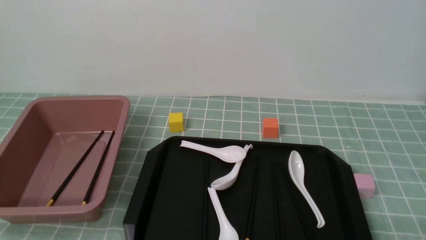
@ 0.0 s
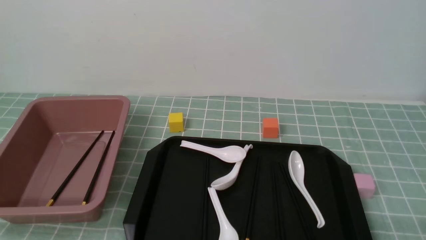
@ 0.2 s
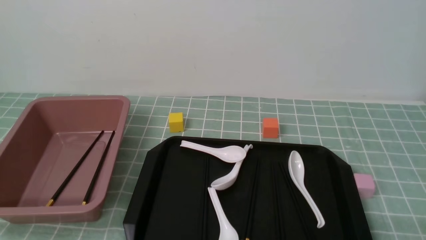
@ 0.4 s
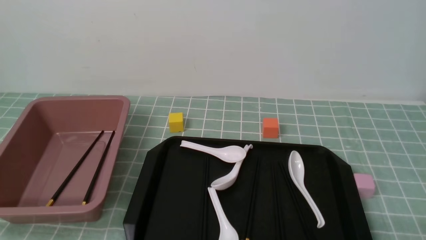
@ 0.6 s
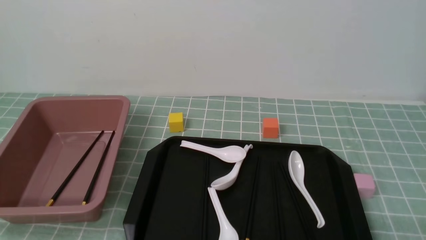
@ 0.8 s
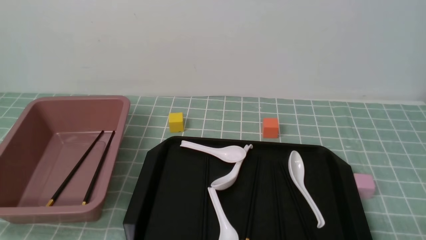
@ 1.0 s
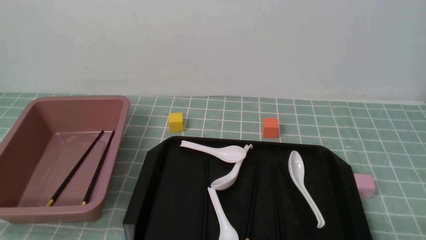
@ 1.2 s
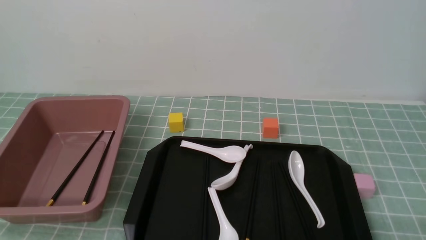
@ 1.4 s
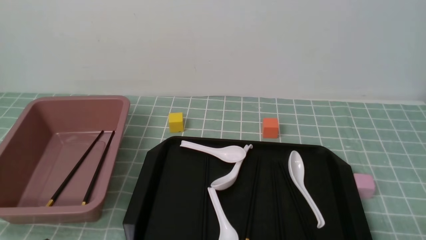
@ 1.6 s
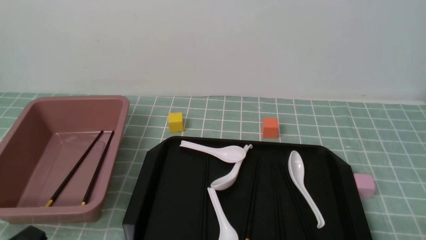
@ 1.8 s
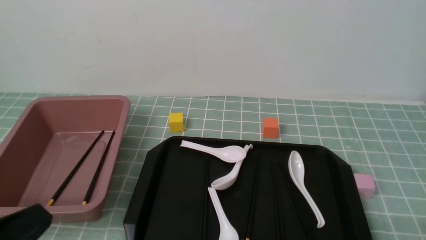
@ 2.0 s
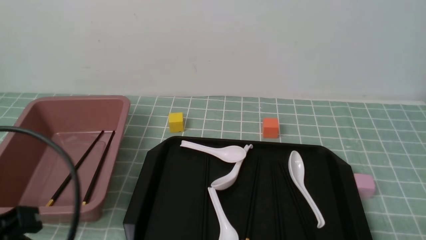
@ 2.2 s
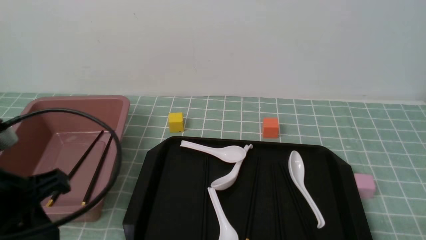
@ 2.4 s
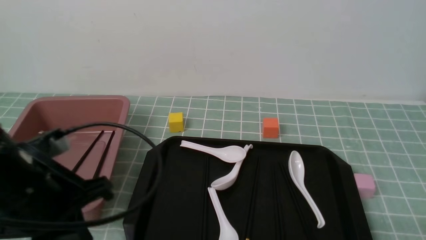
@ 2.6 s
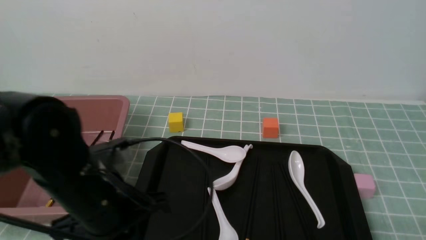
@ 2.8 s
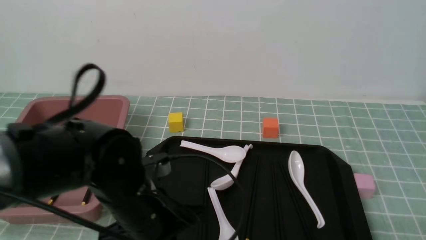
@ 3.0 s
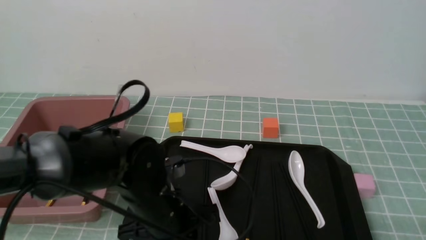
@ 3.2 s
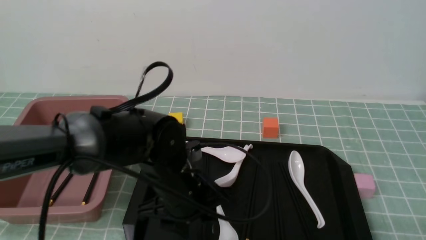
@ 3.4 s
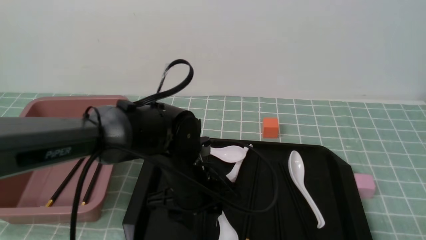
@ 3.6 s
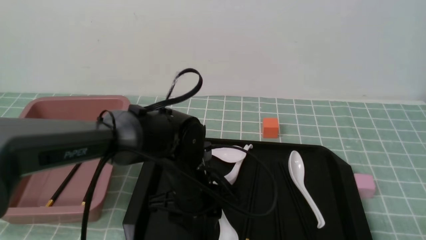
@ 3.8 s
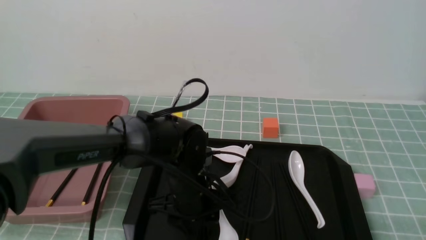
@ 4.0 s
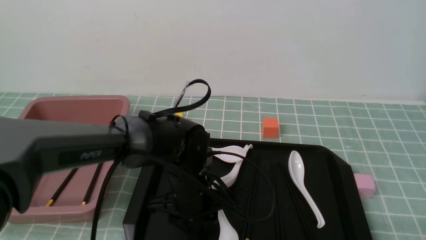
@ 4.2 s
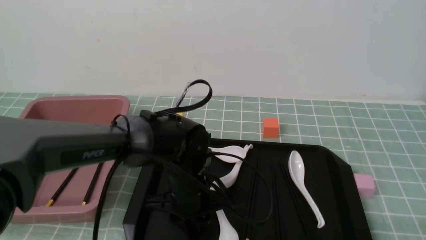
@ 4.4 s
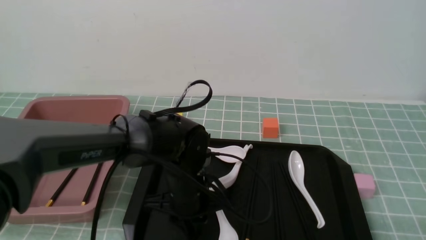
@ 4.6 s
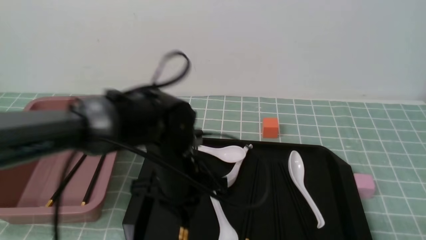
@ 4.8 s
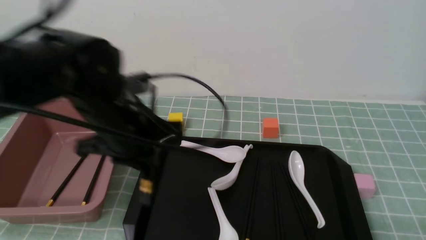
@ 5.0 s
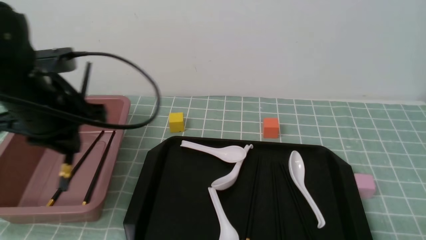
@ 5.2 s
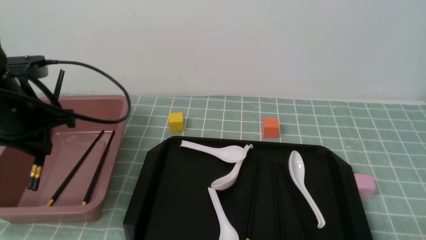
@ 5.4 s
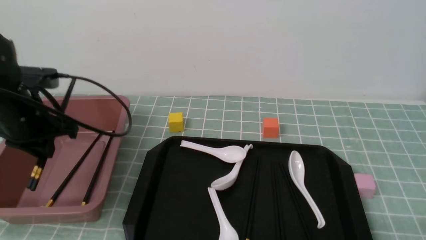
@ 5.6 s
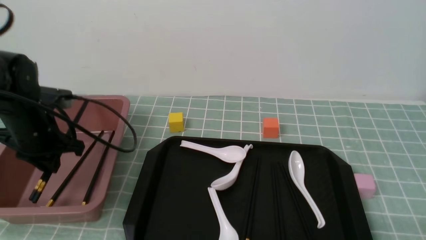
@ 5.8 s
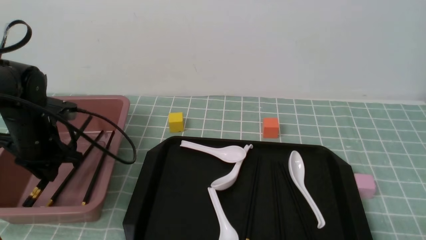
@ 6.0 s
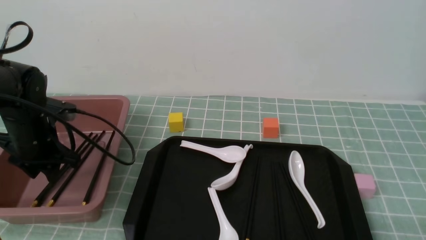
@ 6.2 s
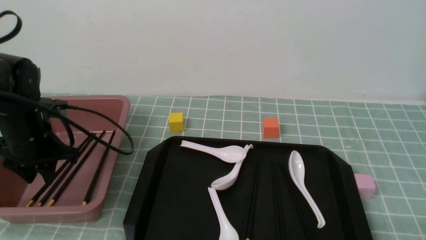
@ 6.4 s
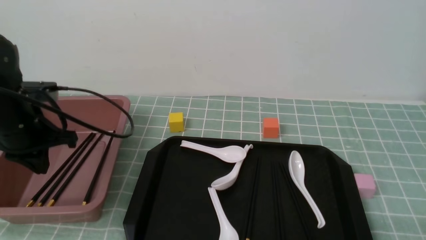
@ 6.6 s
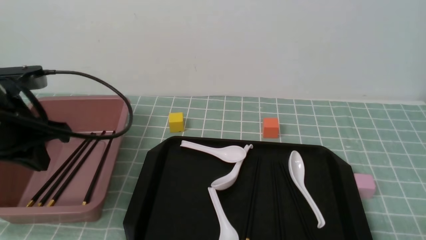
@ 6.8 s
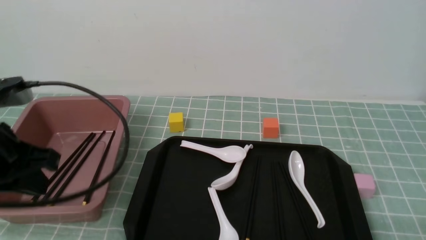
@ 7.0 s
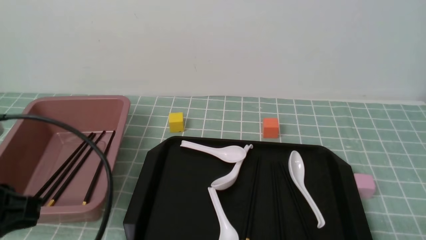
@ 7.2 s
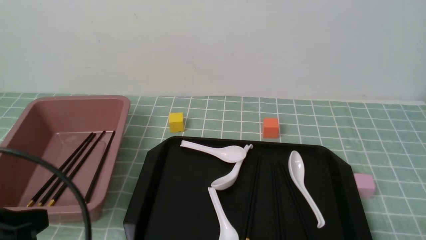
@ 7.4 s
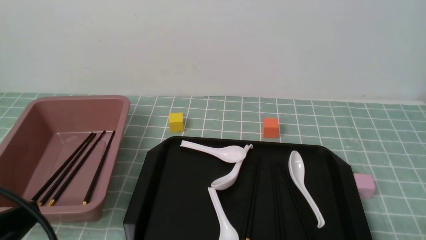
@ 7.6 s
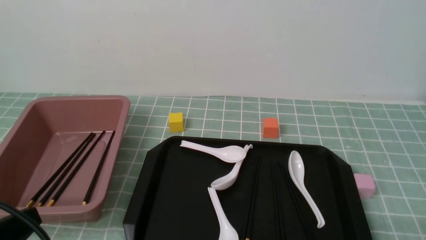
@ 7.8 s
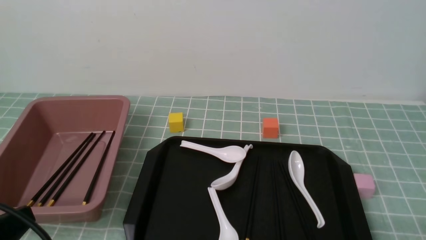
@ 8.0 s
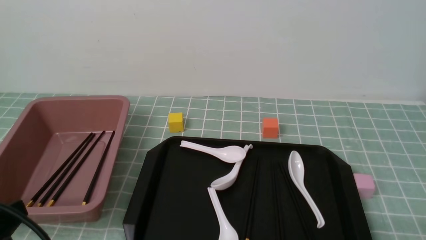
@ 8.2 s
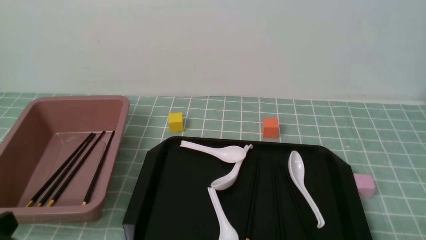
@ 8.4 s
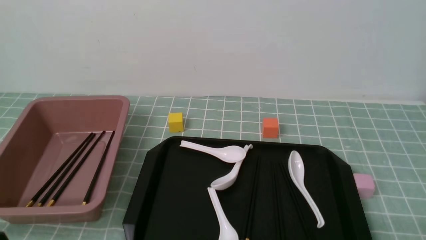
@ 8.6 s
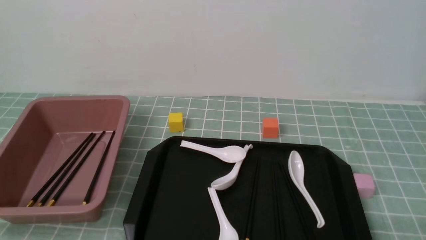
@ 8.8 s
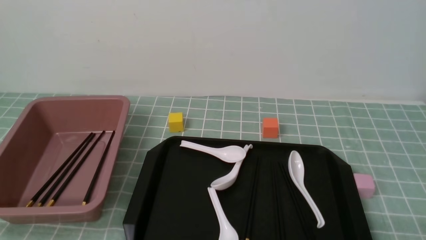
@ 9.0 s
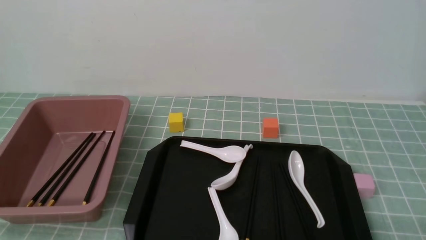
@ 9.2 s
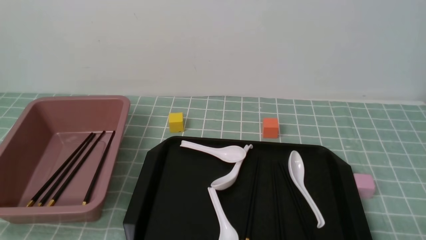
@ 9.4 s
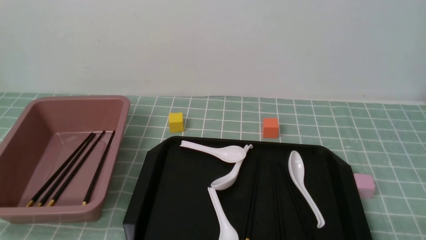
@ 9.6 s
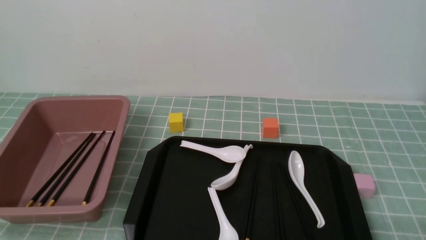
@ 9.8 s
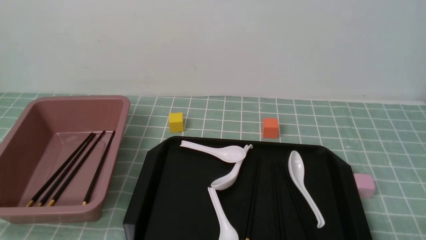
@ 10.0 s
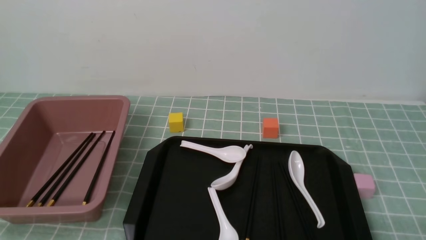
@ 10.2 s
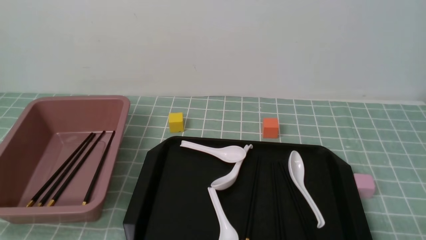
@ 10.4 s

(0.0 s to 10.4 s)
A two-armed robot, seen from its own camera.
Step, 0.0 s - 4.8 s: use the left arm to grab a pair of chopsticks.
Step, 5.0 s - 6.6 s: use the left arm to put the chopsticks into the lunch box.
1.4 s - 3.0 s: The left gripper goes roughly 25 cm forward and to the right.
3.0 s - 4.4 s: The left gripper goes about 10 cm forward, downward and to the right, and opens, then closes again.
4.4 s - 6.0 s: The left gripper is displaced to the left by approximately 25 cm.
6.0 s - 7.4 s: The left gripper shifts approximately 25 cm backward, and closes its fingers.
7.4 s - 9.0 s: The left gripper travels downward and backward by roughly 15 cm.
9.0 s - 10.4 s: Neither gripper changes place.
